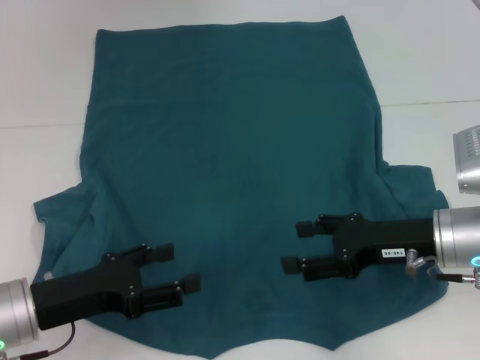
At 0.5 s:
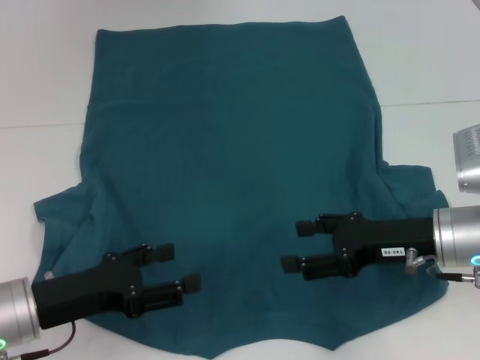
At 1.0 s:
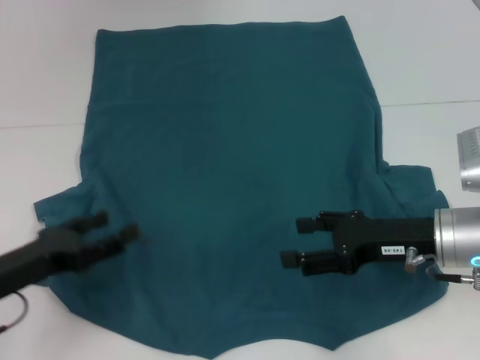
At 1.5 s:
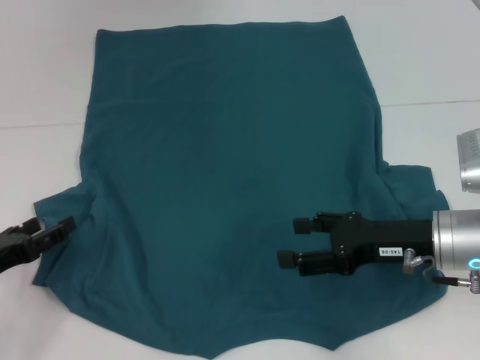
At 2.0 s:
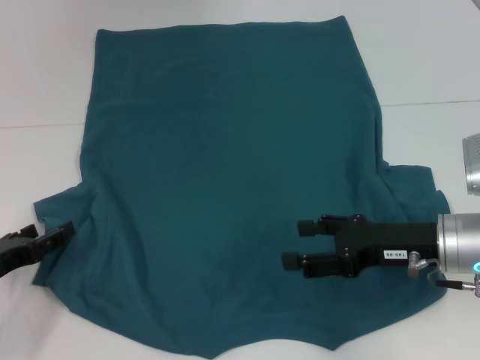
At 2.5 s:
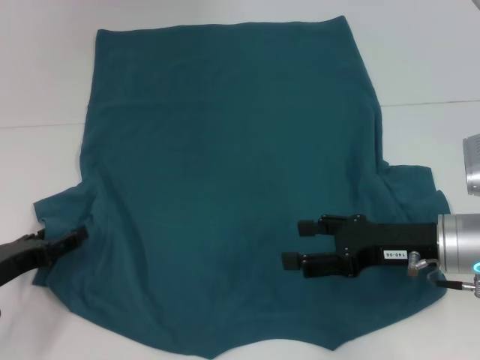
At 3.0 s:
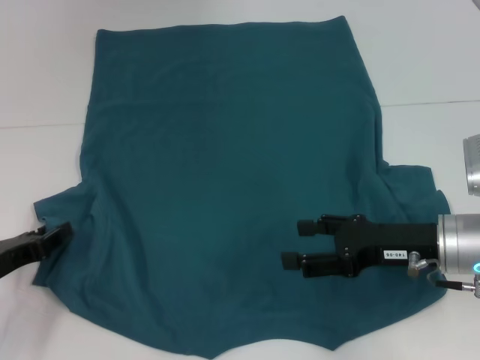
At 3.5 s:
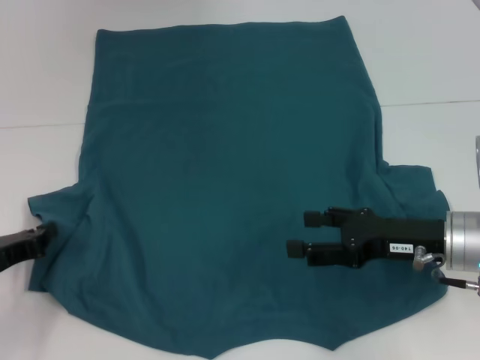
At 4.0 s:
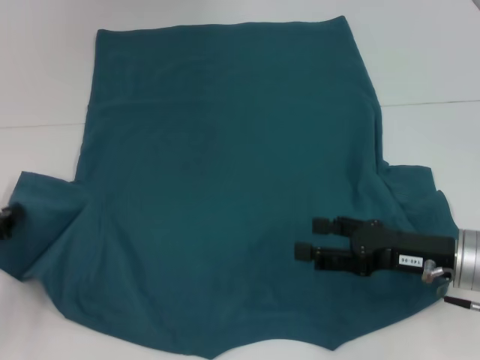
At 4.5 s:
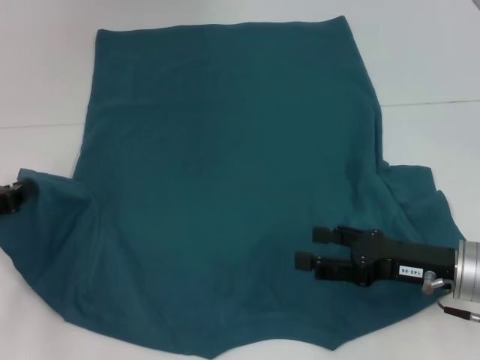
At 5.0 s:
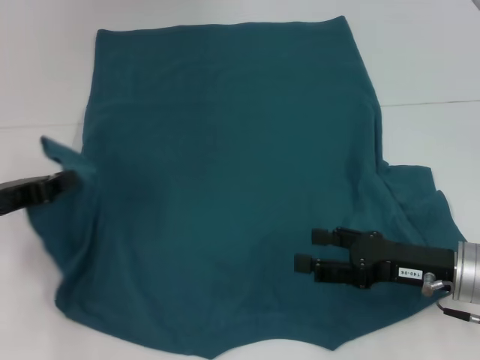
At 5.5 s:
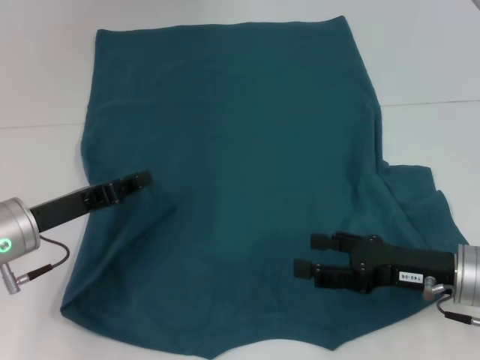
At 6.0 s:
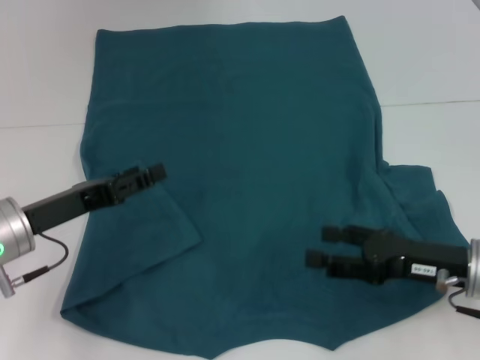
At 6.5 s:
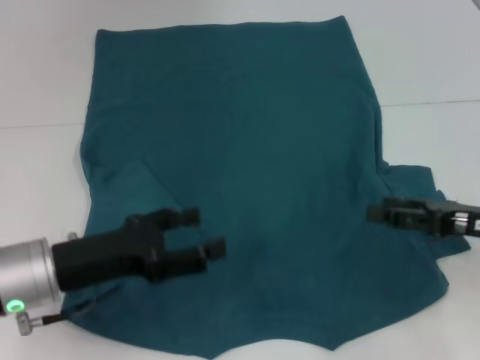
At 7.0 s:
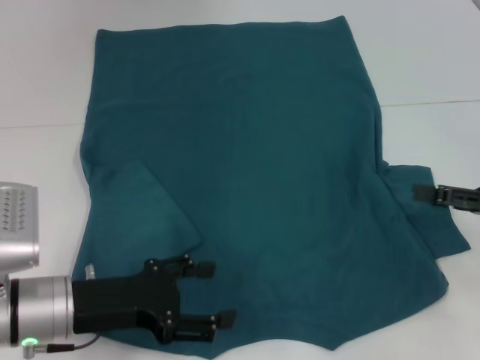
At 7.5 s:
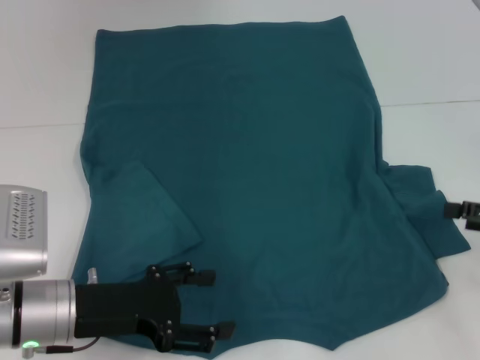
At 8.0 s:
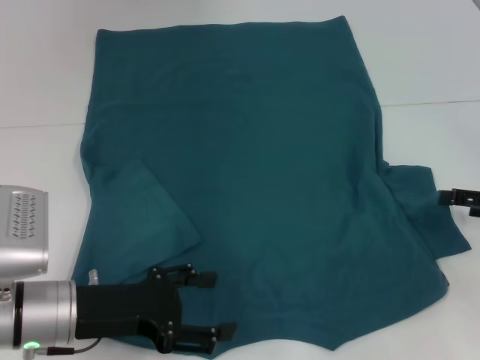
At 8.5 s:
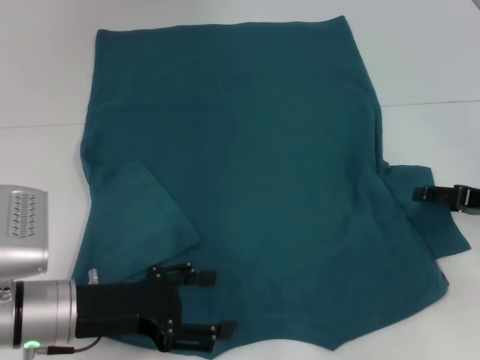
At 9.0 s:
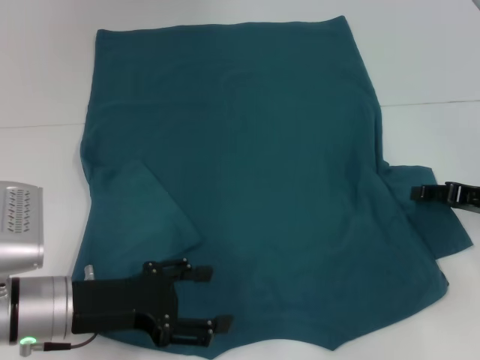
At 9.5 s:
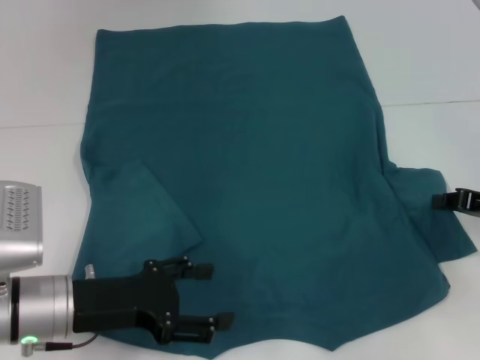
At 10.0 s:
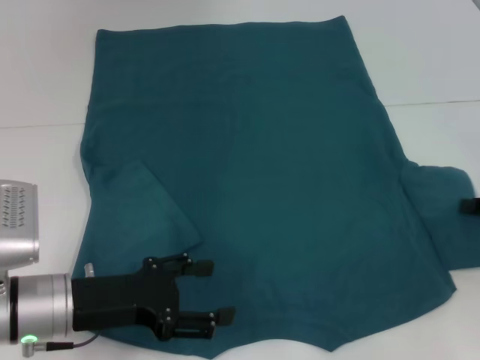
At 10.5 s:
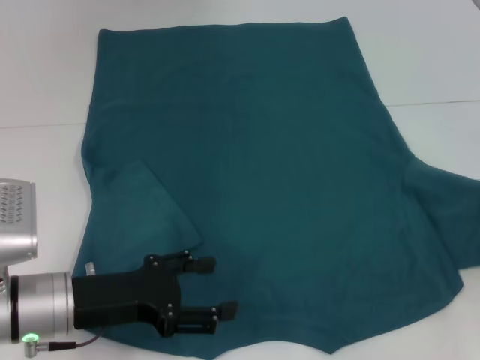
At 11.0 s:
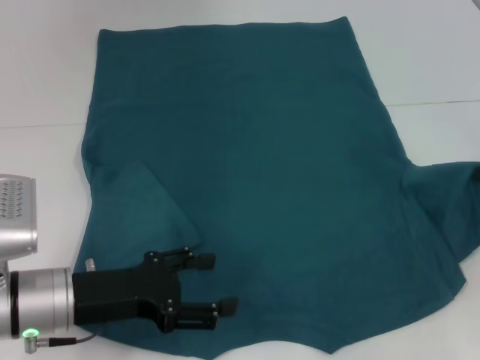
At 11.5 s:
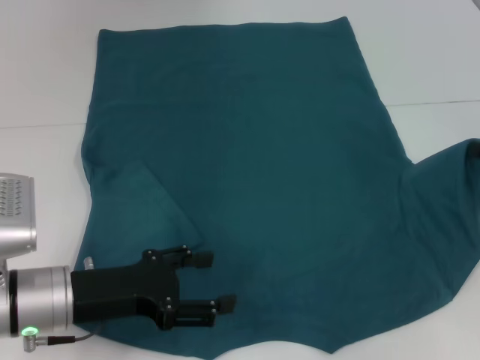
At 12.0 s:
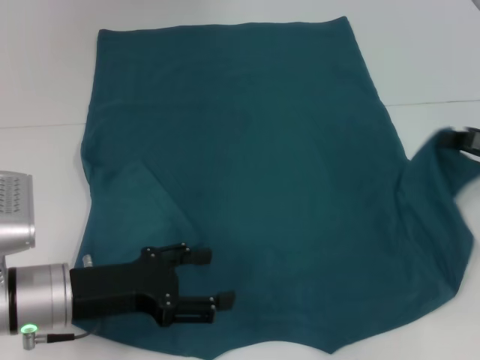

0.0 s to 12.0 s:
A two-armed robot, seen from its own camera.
Step, 0.0 to 5.5 s: Fold the bottom left sleeve with your left hand.
0.0 to 2.0 s: The left gripper shifts about 10 cm to the left.
2.0 to 4.0 s: The left gripper closes its fingers.
4.0 to 6.0 s: The left gripper shifts roughly 10 cm to the right, and opens up.
6.0 to 8.0 s: The right gripper is displaced to the right by roughly 10 cm. The left gripper changes place by approximately 5 cm, and opens up.
8.0 to 10.0 s: The right gripper closes.
10.0 to 12.0 s: The right gripper shifts by about 5 cm.

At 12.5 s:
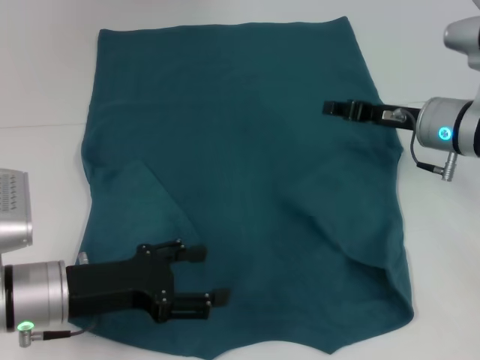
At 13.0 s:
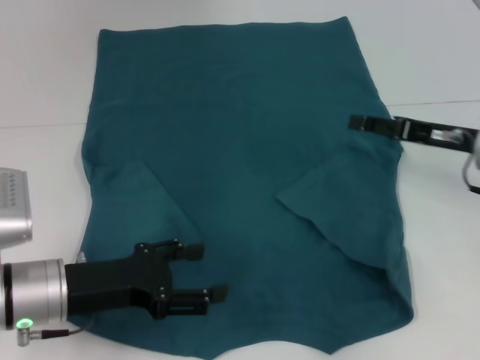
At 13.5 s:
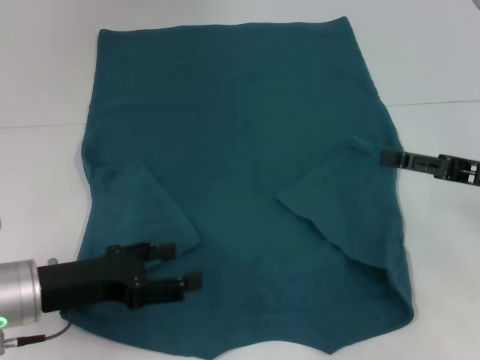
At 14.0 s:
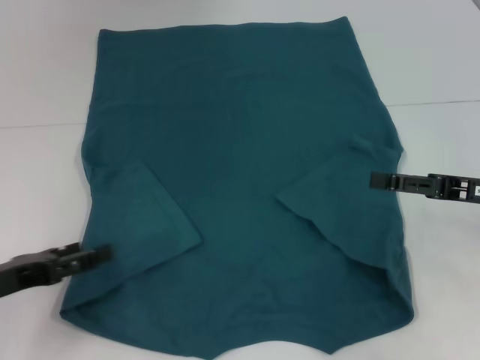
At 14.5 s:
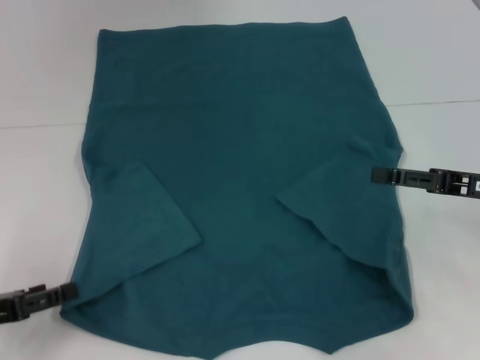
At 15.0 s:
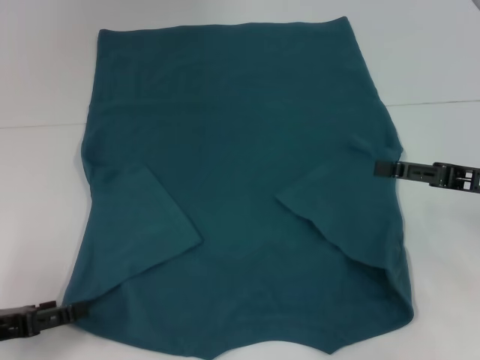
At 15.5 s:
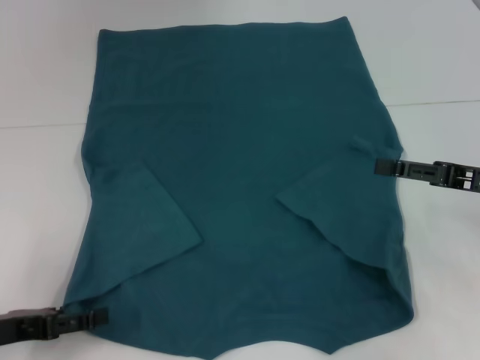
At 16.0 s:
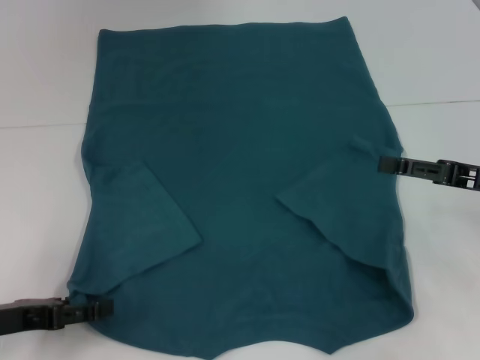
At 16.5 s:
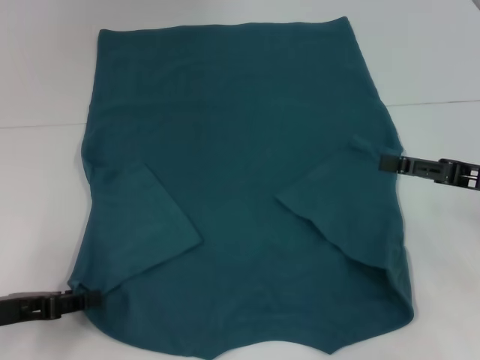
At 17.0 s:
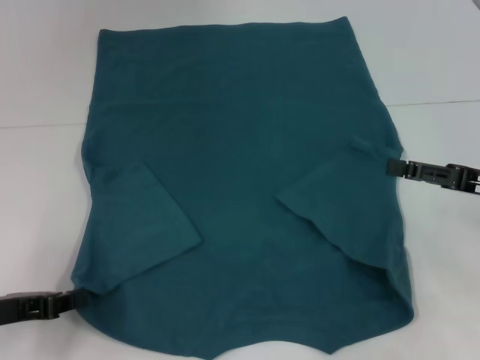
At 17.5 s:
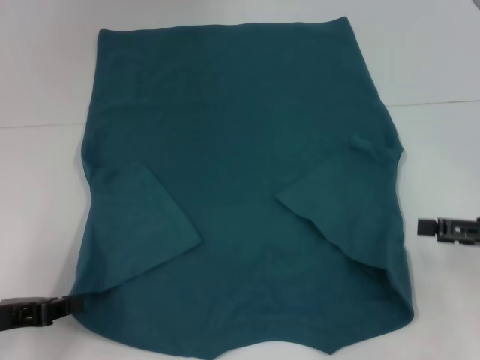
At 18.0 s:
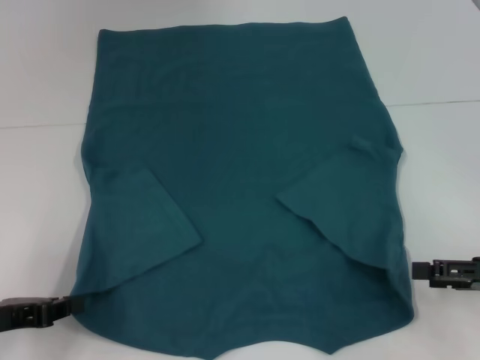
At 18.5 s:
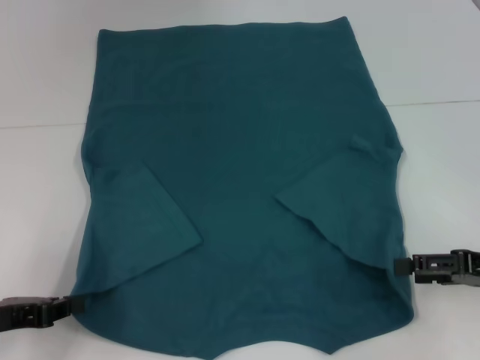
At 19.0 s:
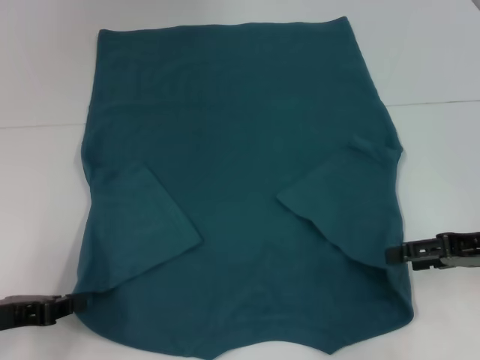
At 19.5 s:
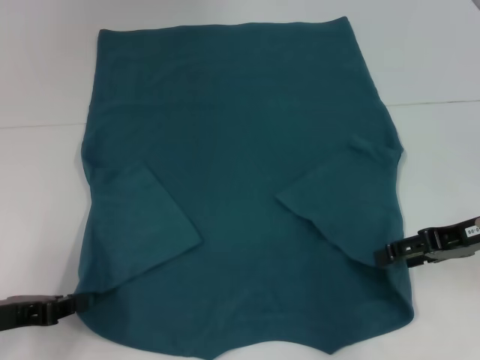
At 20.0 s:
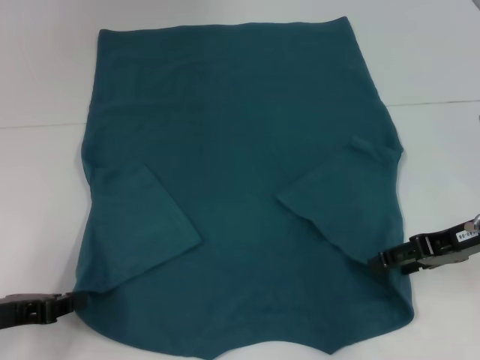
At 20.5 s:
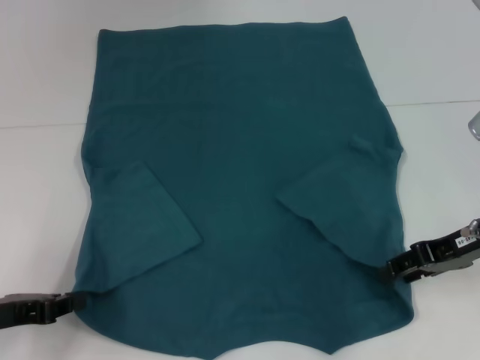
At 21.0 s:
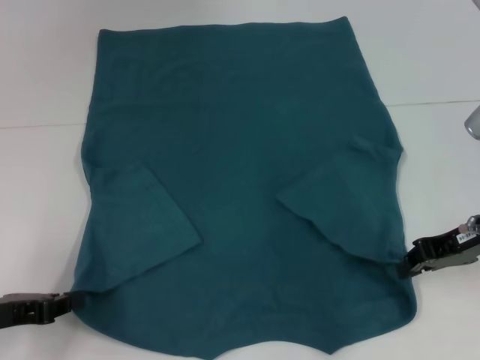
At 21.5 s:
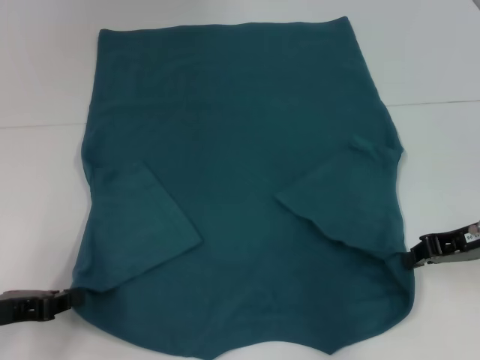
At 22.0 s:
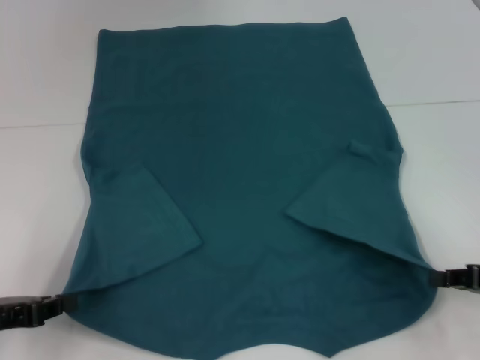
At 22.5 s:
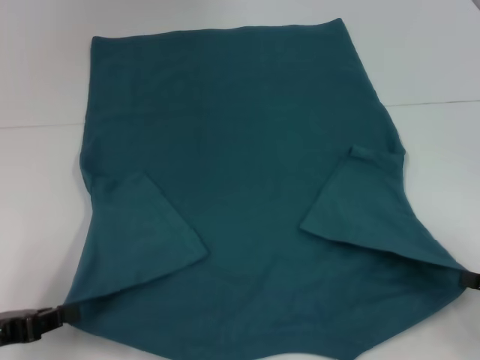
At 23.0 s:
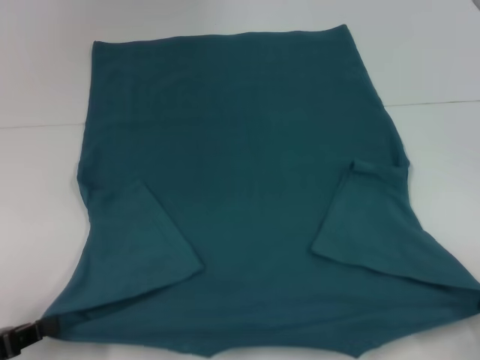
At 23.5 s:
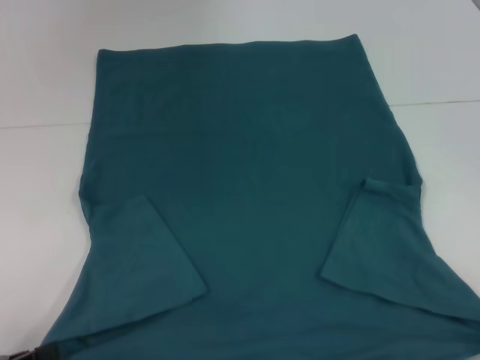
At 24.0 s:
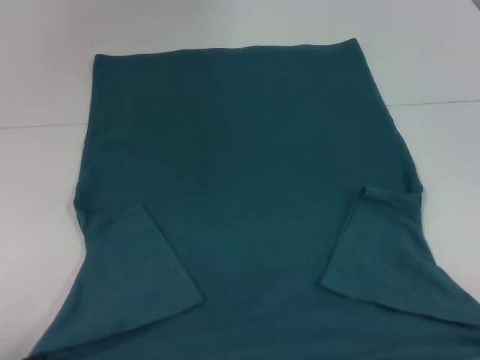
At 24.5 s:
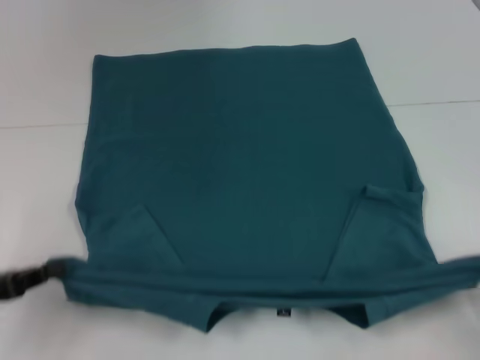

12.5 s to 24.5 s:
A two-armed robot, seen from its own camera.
Step, 13.0 to 17.0 s: Grab the bottom left corner with your left hand.
Step, 17.5 to 21.0 s: Grab the bottom right corner with your right hand.
12.5 to 14.5 s: The left gripper heads to the left, covering roughly 10 cm. Meanwhile the right gripper goes about 15 cm backward and to the right, and opens.
14.5 to 16.5 s: The left gripper closes up.
16.5 to 18.5 s: The right gripper shifts by approximately 5 cm; the left gripper closes its fingers.
18.5 to 20.5 s: The right gripper heads forward and to the left, covering about 10 cm.
20.5 to 22.5 s: The right gripper moves backward, to the right and downward, approximately 15 cm, and closes its fingers.
22.5 to 24.5 s: The left gripper reaches about 5 cm backward, then returns.

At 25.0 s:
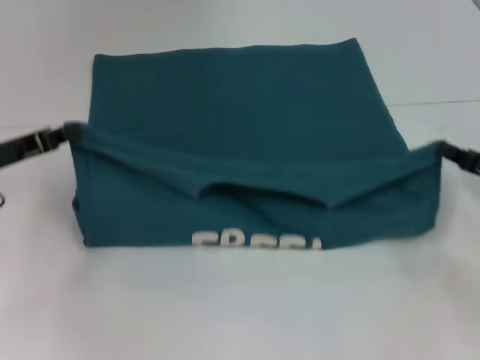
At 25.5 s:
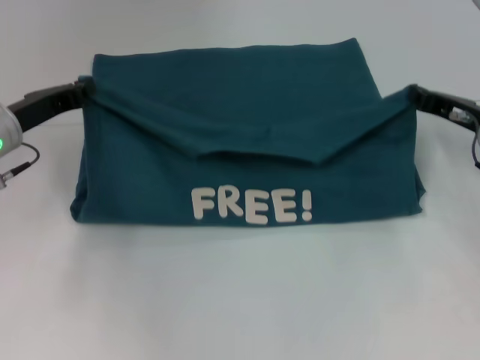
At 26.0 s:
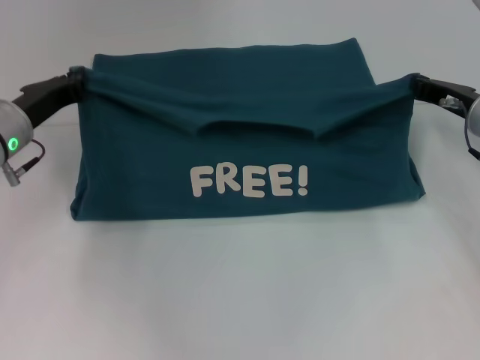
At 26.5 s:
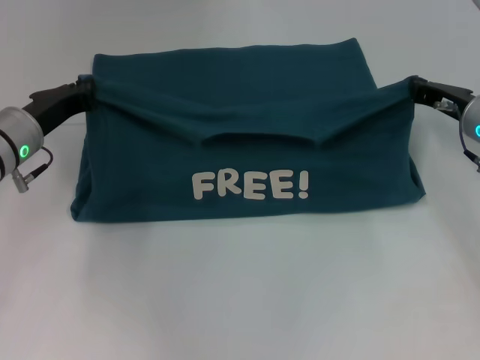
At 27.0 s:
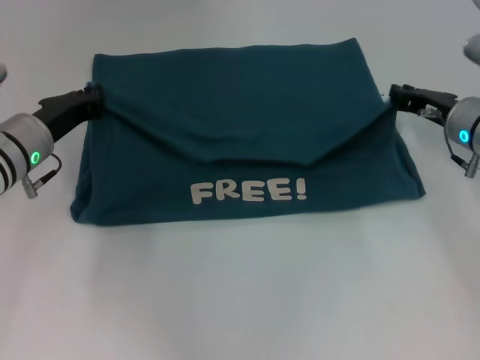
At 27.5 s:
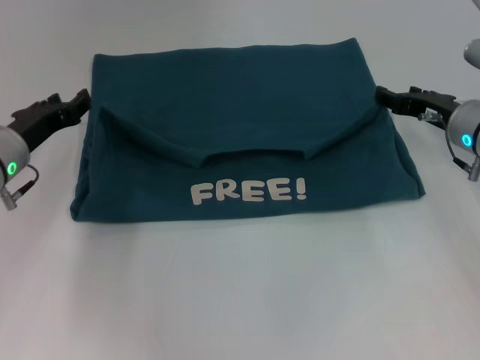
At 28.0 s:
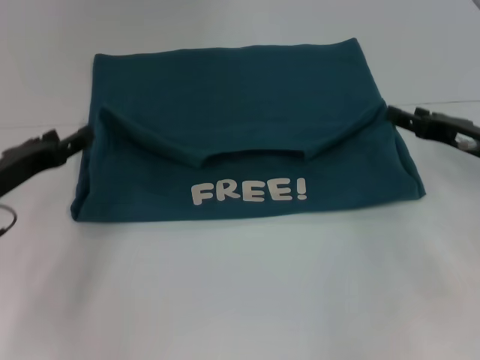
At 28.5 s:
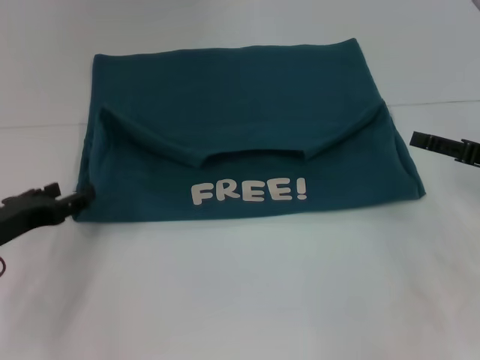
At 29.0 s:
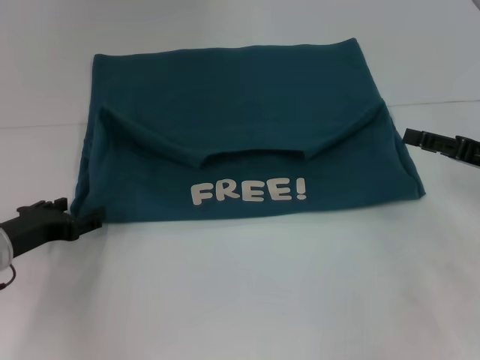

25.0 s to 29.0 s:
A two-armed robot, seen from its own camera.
Step, 25.0 to 27.0 s: Fold the clothes to the left.
Step, 25.0 to 27.0 s: Fold the clothes to the right.
25.0 to 27.0 s: The left gripper shifts approximately 5 cm to the right, while the right gripper is displaced forward and to the left by some 15 cm.
27.0 to 29.0 s: The left gripper moves backward and downward, approximately 10 cm, and opens, while the right gripper heads backward and to the right, covering approximately 10 cm, and opens up.
